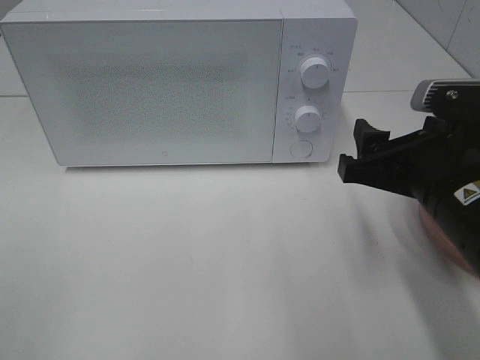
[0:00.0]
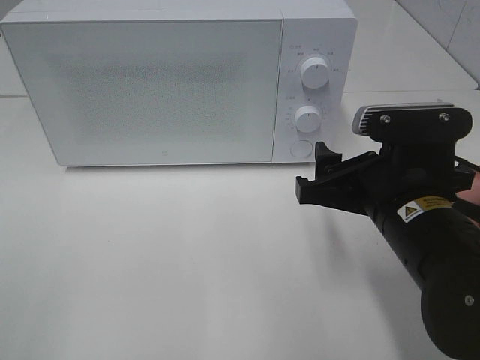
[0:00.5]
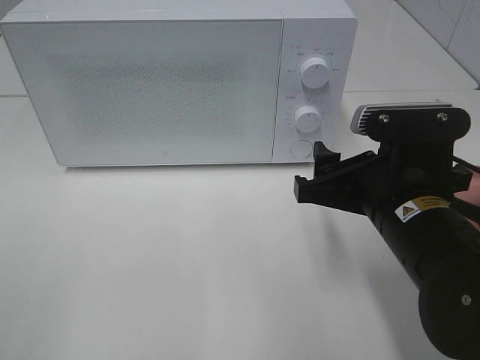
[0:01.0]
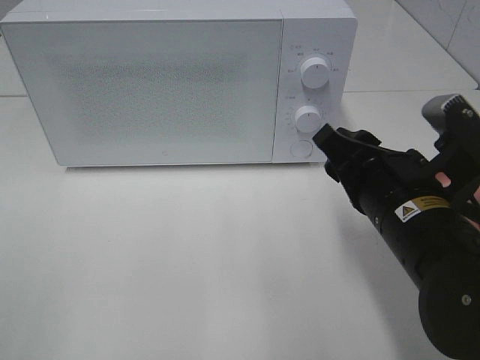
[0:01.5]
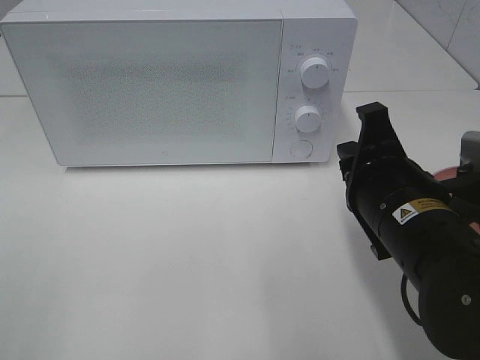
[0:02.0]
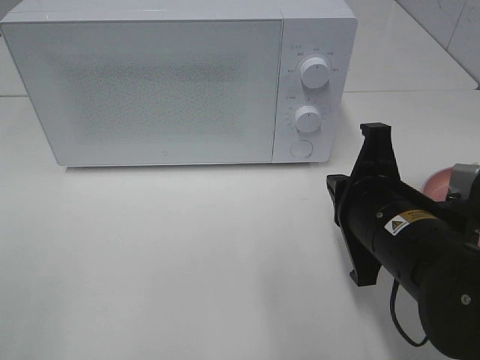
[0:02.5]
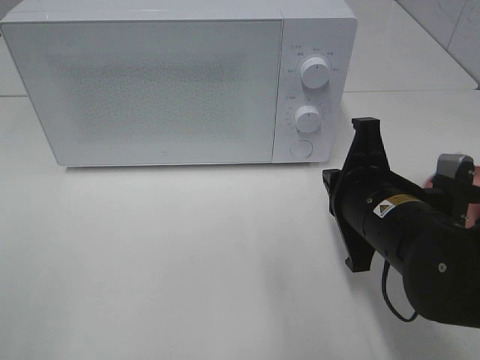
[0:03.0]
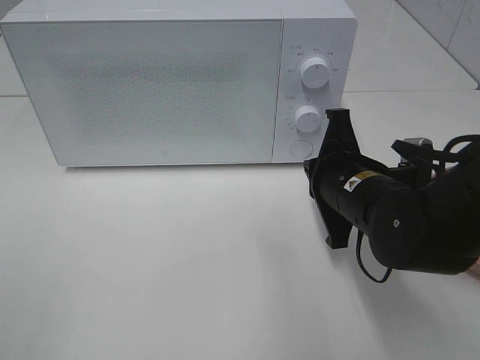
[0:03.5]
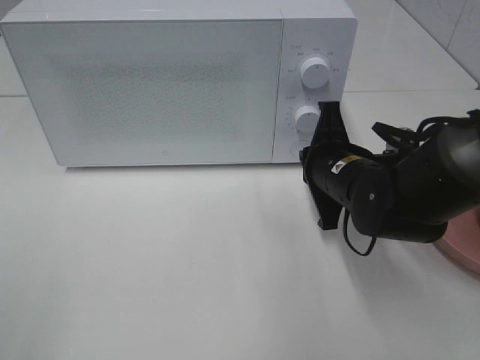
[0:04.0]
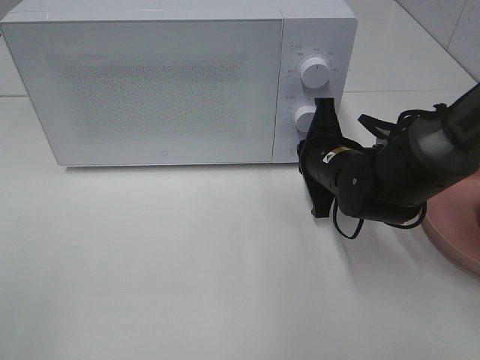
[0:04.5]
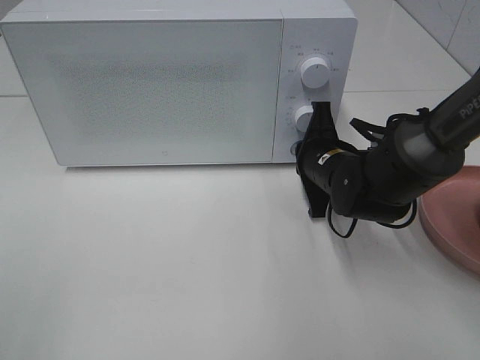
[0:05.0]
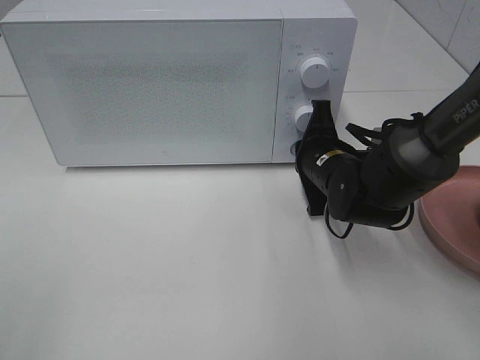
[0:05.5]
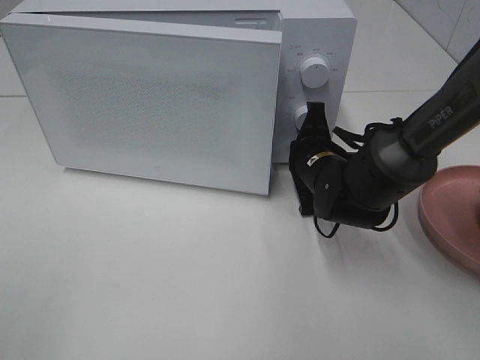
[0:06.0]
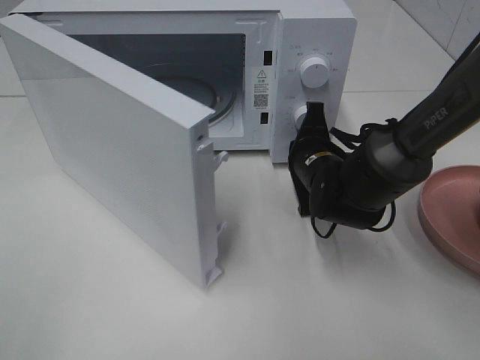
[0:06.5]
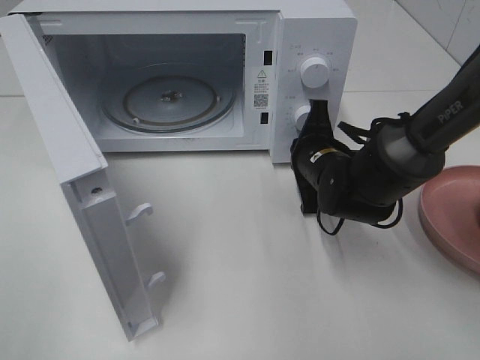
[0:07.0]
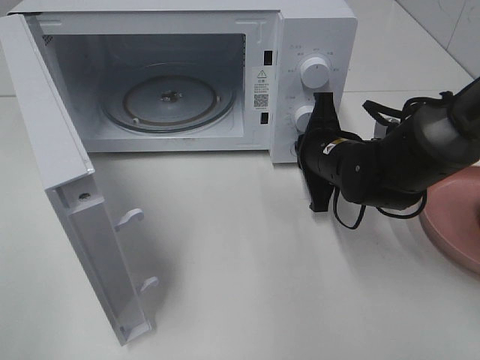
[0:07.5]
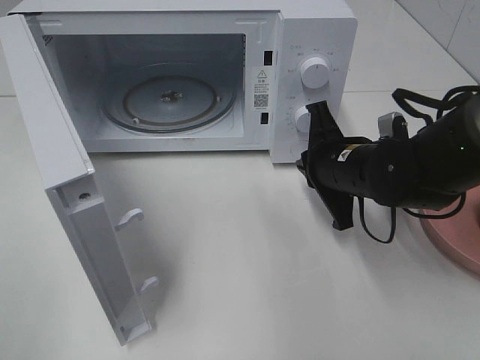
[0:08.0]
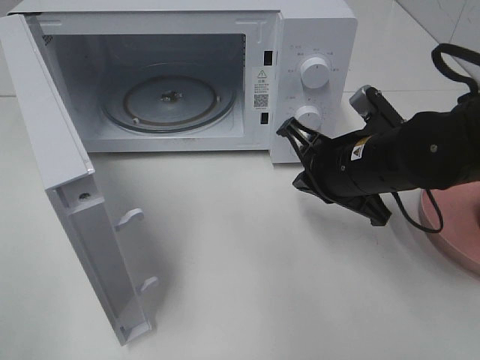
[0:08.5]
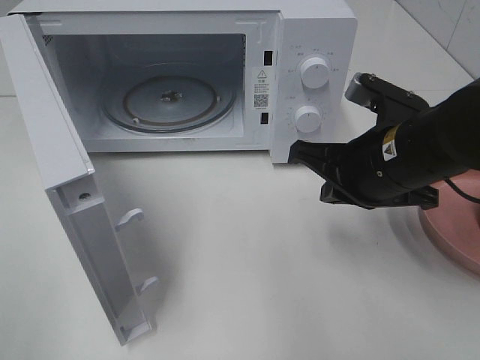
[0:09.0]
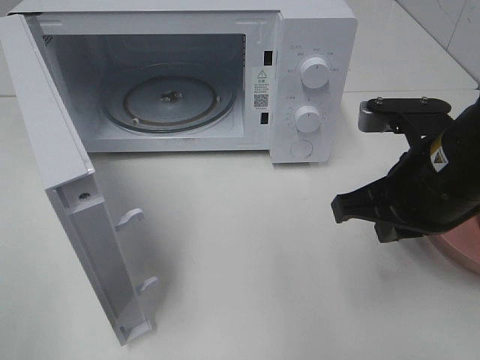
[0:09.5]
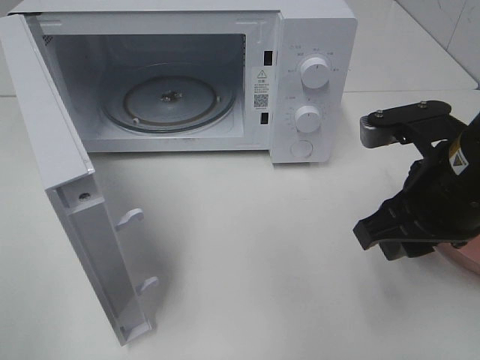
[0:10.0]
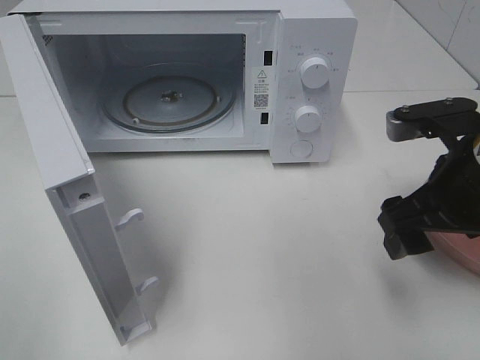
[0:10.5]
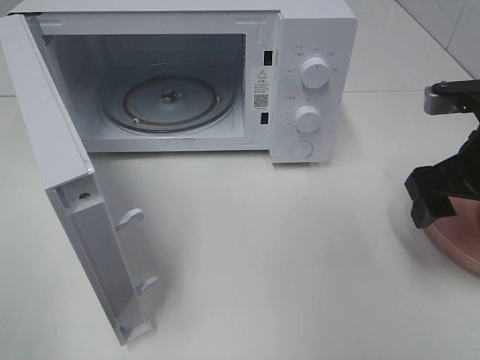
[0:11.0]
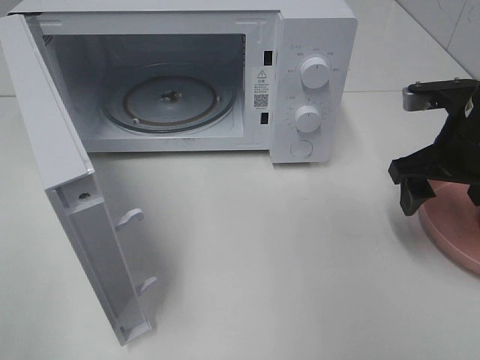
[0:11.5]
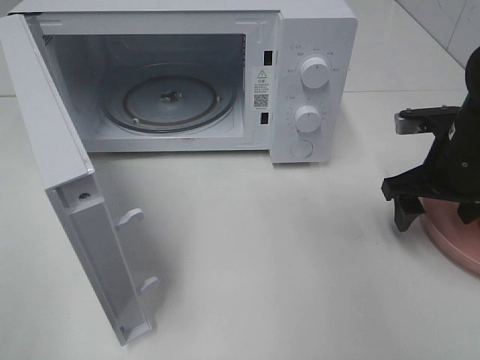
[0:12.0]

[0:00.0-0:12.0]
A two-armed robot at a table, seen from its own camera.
Task of the whole recording: Heat the burger.
Step, 0.0 to 7.5 s: Right hand: press the switch.
0.0 to 2.0 s: The right gripper closes.
2.0 to 4.0 s: The right gripper goes approximately 10 cm forward and downward.
4.0 to 6.0 s: The right gripper travels forward by roughly 5 cm.
6.0 to 8.0 s: The right gripper ends up some 5 cm from where it was.
8.0 to 10.0 s: The right gripper shifts about 15 cm backward and upward, and opens its fingers.
10.0 to 12.0 s: The right gripper moves forward, to the right and downward, roughly 15 cm, and opens up.

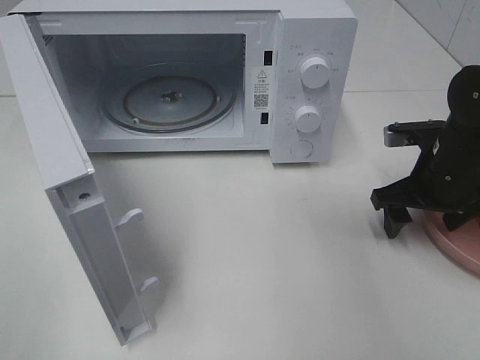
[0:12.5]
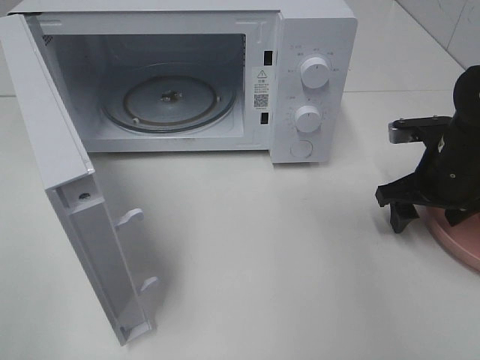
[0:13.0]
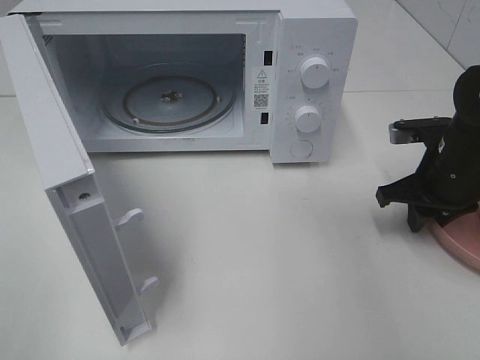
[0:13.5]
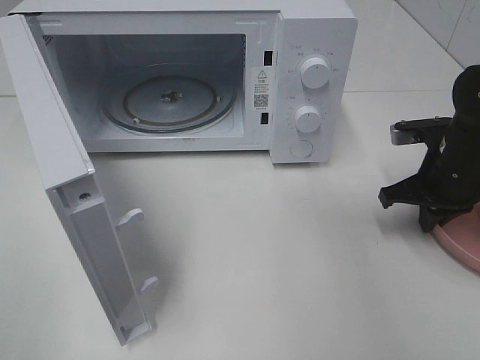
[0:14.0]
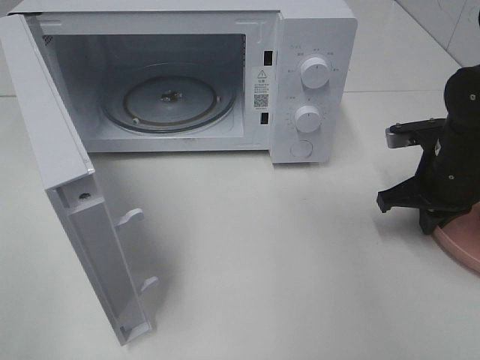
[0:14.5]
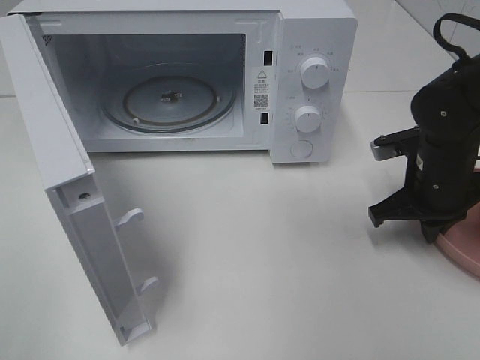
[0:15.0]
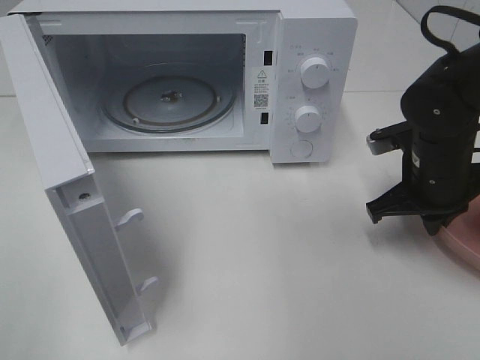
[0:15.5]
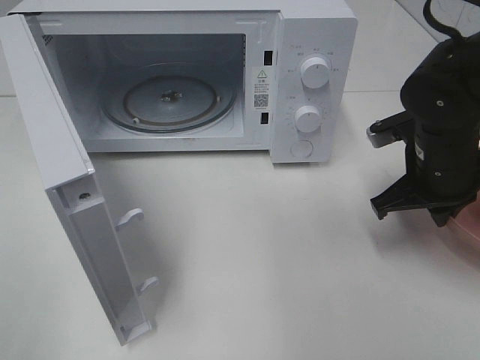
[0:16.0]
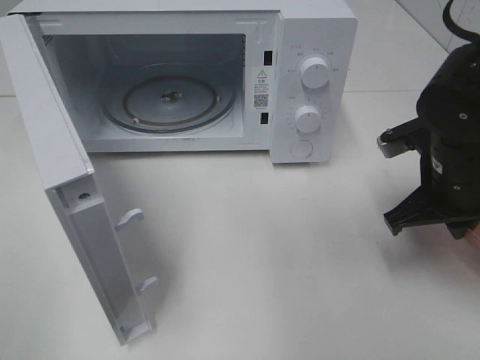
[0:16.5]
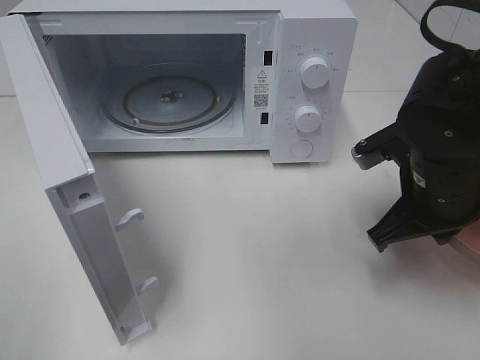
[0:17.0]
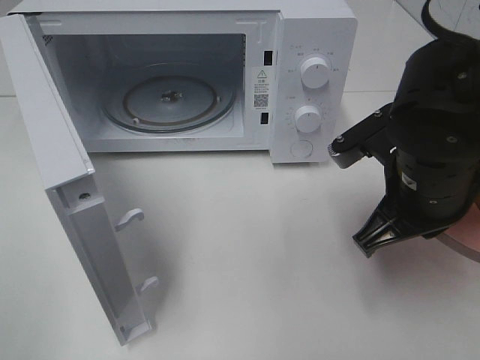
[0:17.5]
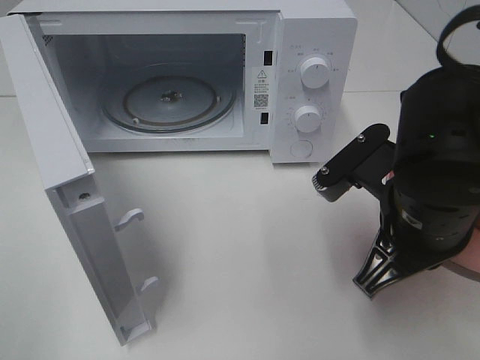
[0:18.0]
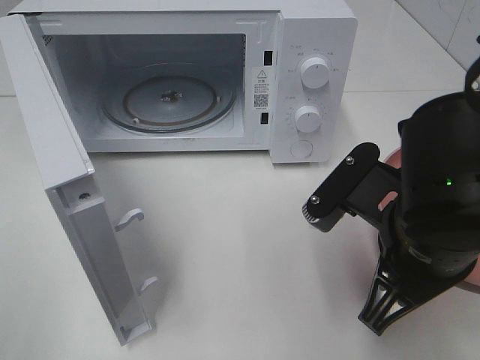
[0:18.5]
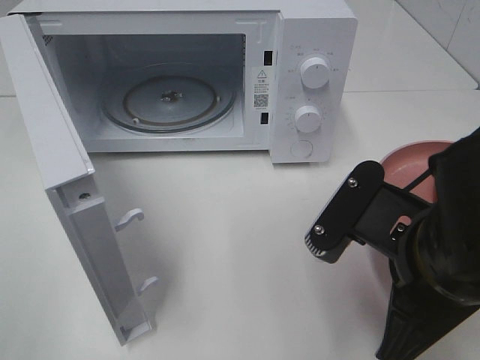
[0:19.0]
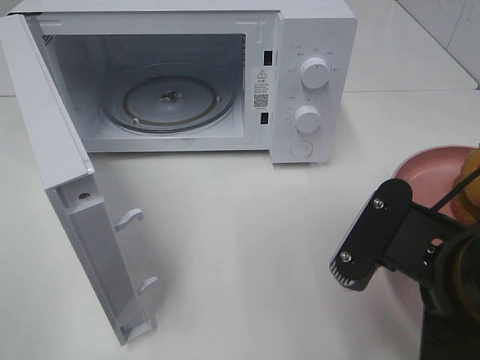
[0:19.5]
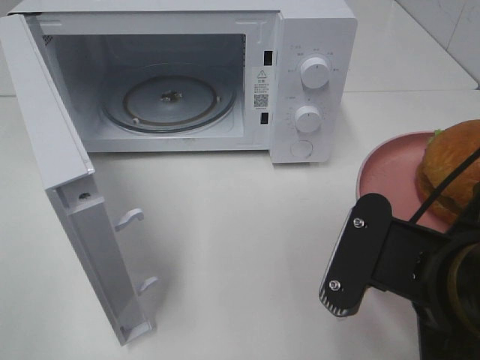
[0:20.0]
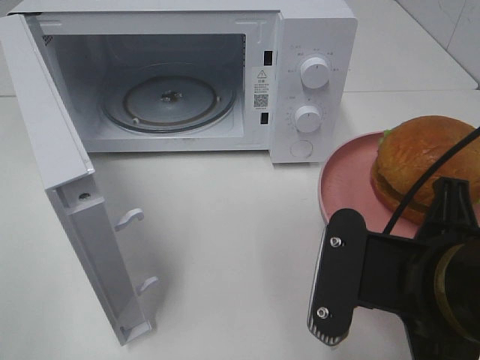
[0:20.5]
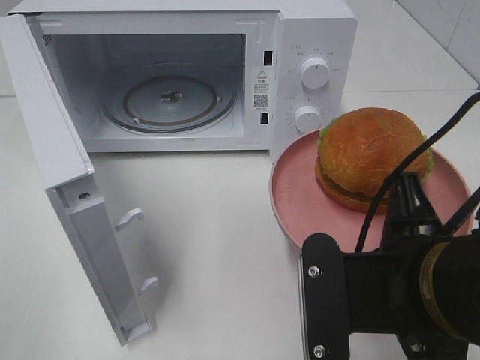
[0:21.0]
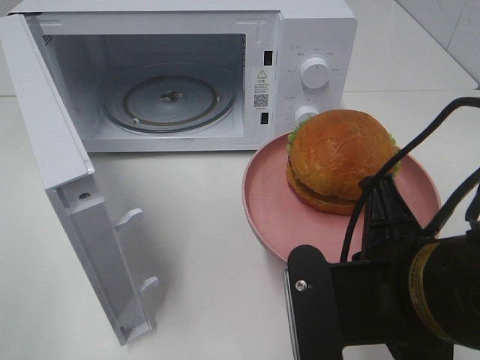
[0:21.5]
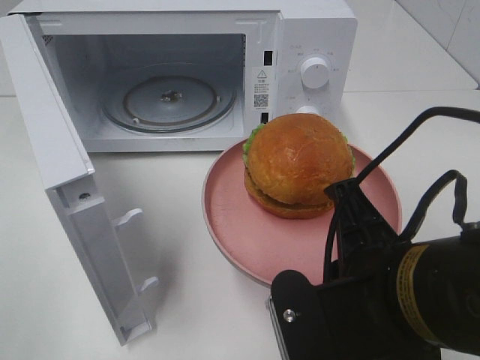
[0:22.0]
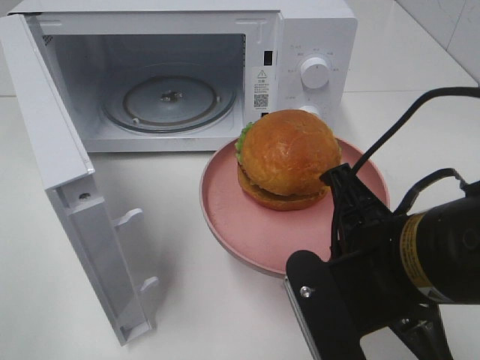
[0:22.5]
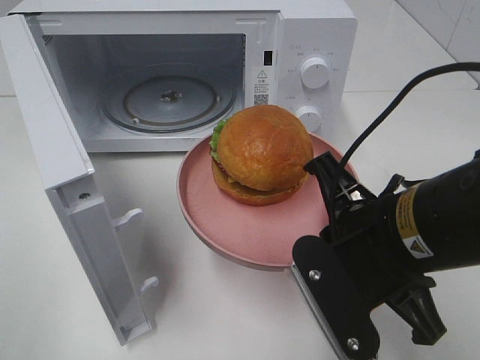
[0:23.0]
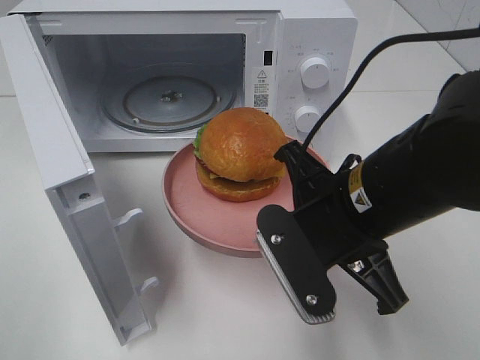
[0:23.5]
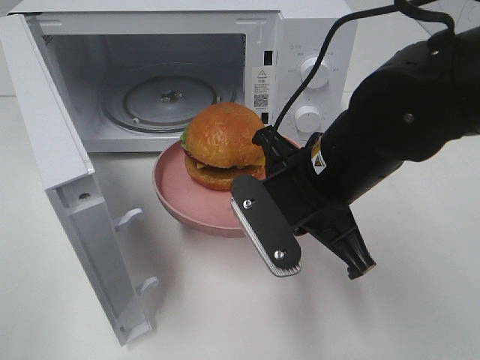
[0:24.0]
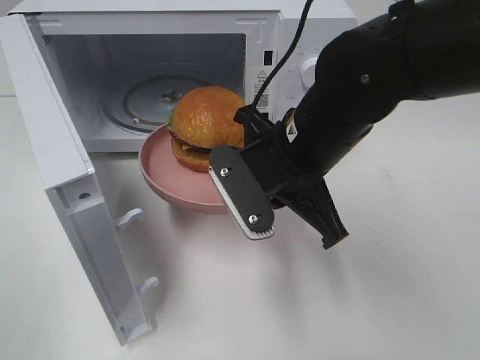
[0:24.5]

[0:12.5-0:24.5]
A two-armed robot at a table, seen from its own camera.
Task of the whole recording: Heat the burger.
12.5 to 14.5 s: The right gripper closes up.
14.5 to 16.5 s: The right gripper goes approximately 5 cm backward.
16.5 to 18.5 s: The right gripper moves backward and to the left, roughly 15 cm.
18.5 to 20.5 s: The right gripper is displaced backward by about 5 cm.
22.5 to 24.5 s: The right gripper is displaced forward and to the left by roughly 15 cm.

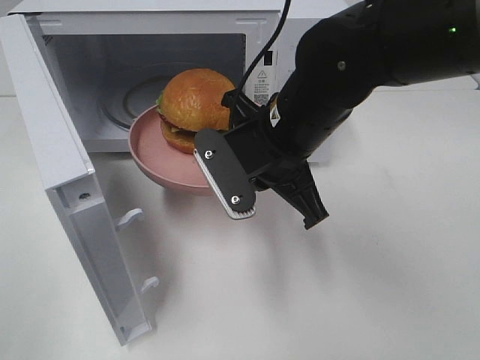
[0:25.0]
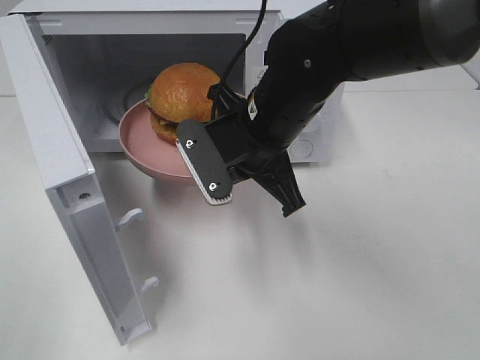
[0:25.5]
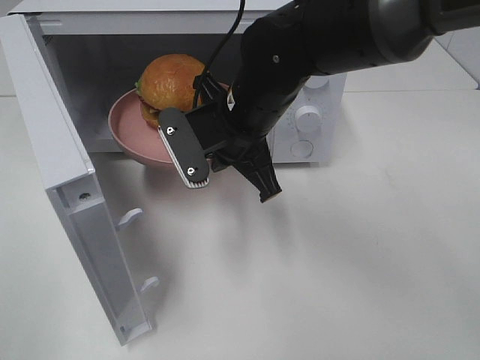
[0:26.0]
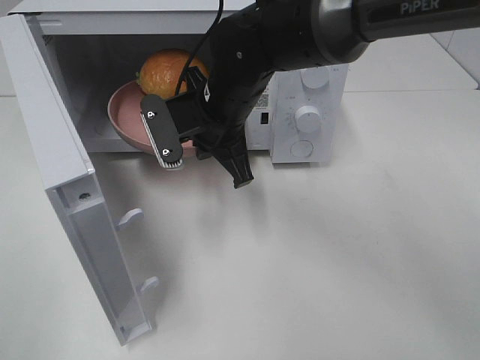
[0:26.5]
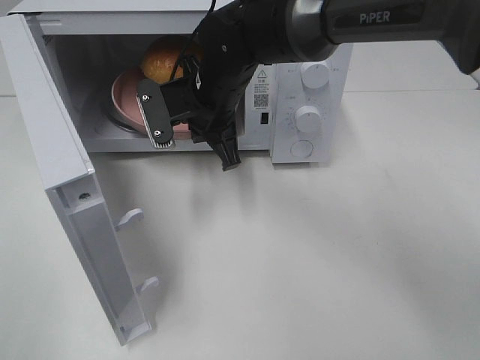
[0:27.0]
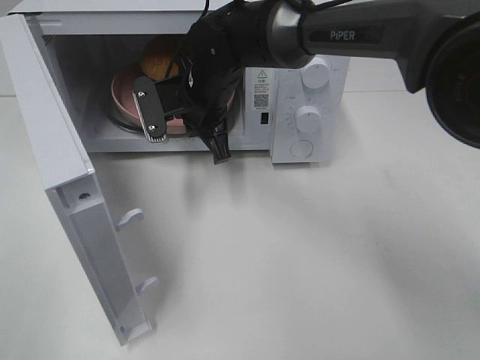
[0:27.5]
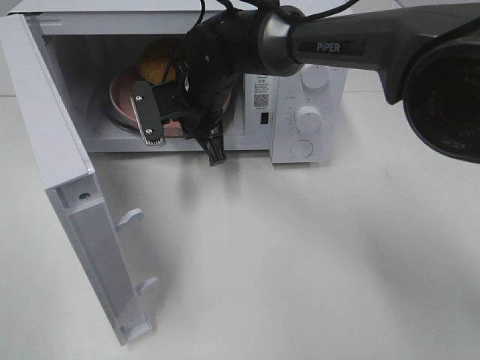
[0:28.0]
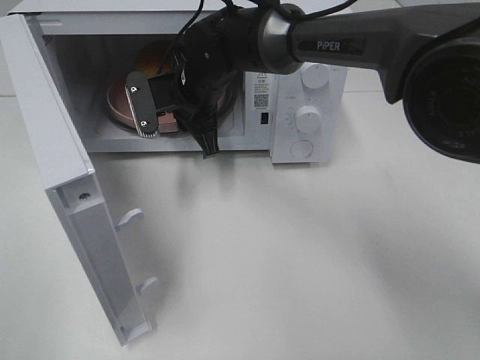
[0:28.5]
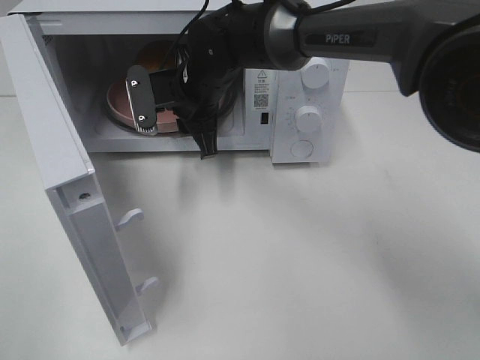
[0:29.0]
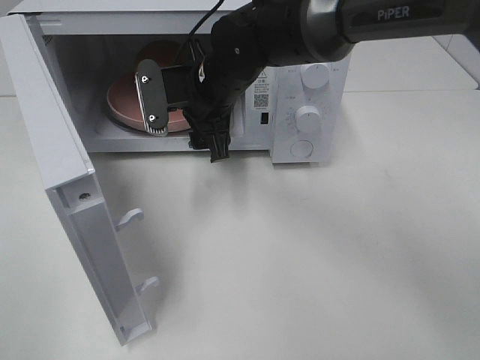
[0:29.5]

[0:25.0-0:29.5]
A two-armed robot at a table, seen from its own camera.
Task of the whole recording: Heat the burger.
Step, 25.0 to 29.0 s: Right hand: place the plate in the microwave.
25.0 to 27.0 s: The right gripper is displaced forward and to the left by approximately 15 cm.
27.0 to 29.5 s: The right gripper opens up.
